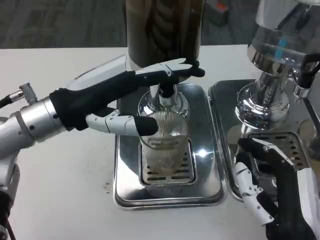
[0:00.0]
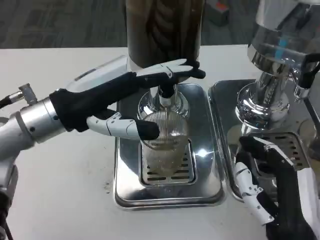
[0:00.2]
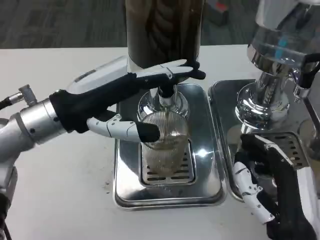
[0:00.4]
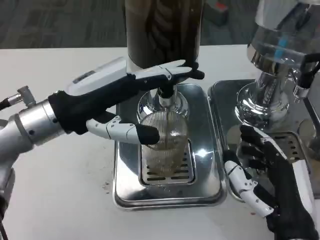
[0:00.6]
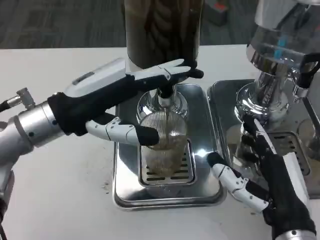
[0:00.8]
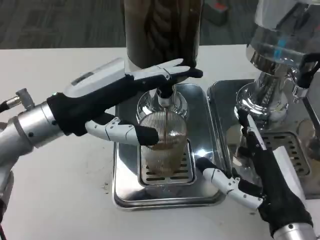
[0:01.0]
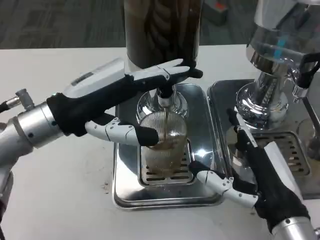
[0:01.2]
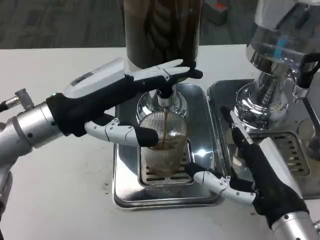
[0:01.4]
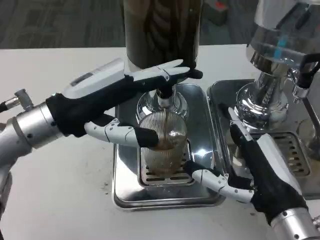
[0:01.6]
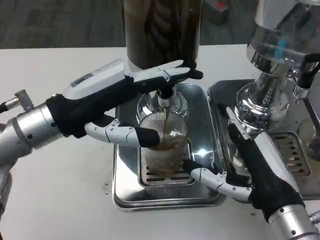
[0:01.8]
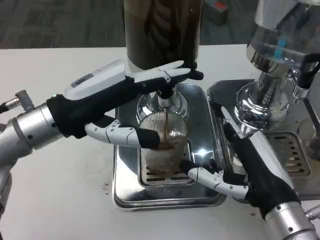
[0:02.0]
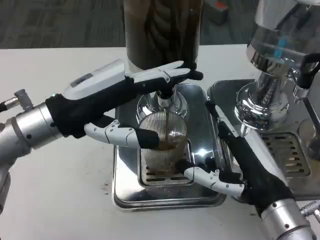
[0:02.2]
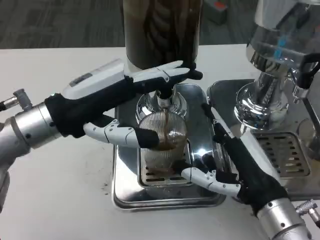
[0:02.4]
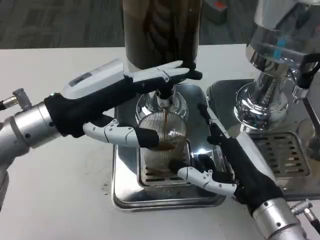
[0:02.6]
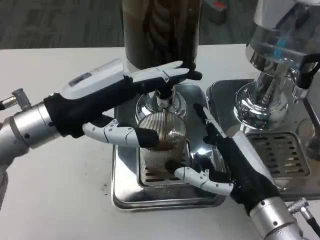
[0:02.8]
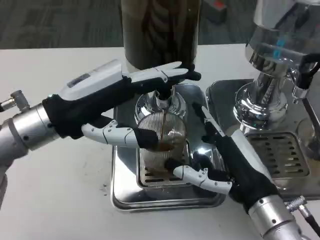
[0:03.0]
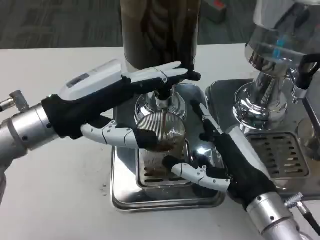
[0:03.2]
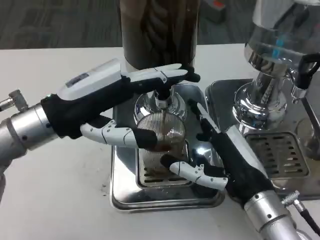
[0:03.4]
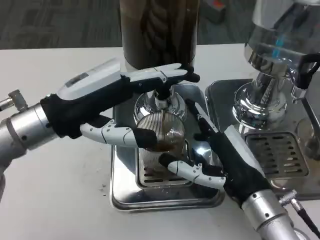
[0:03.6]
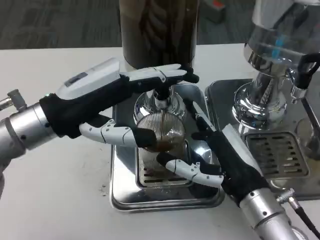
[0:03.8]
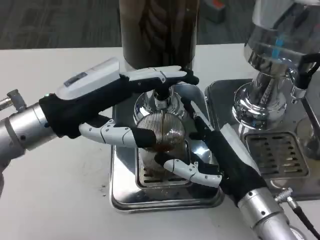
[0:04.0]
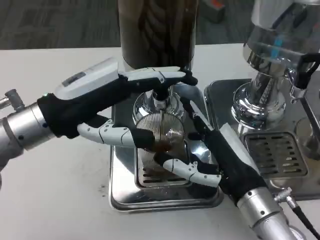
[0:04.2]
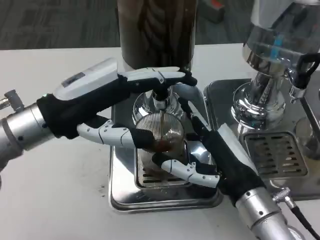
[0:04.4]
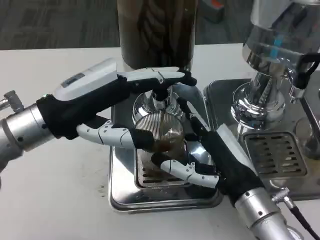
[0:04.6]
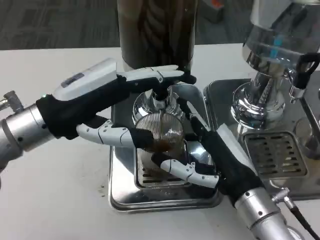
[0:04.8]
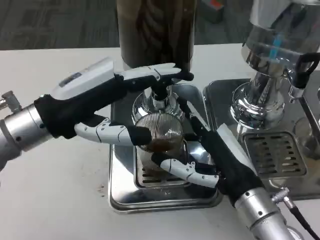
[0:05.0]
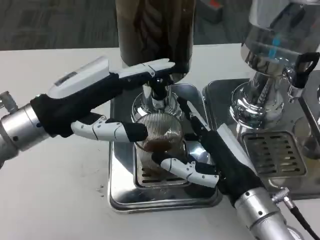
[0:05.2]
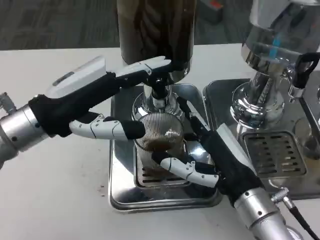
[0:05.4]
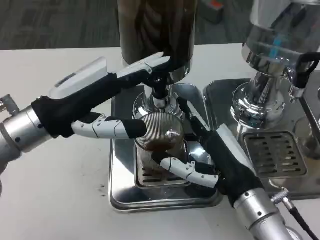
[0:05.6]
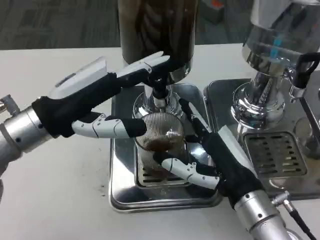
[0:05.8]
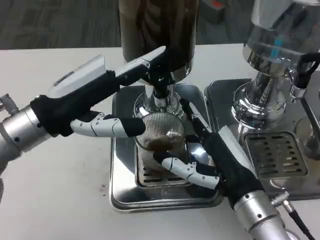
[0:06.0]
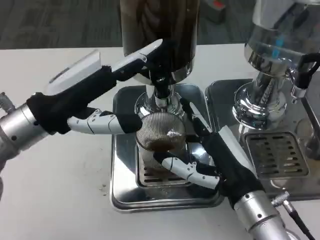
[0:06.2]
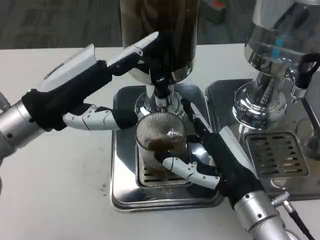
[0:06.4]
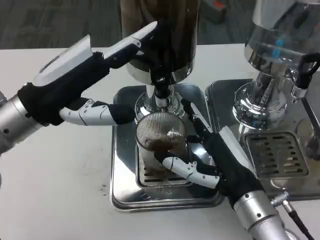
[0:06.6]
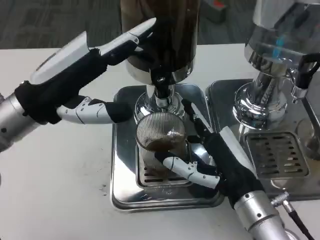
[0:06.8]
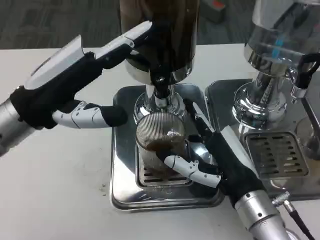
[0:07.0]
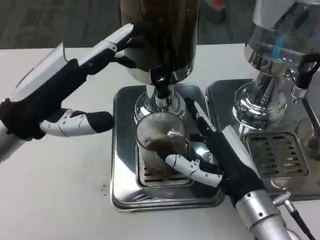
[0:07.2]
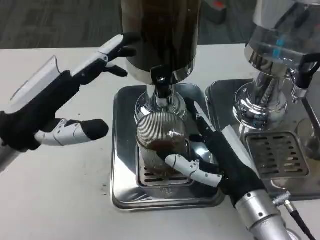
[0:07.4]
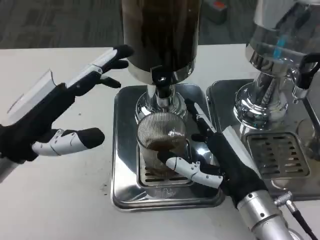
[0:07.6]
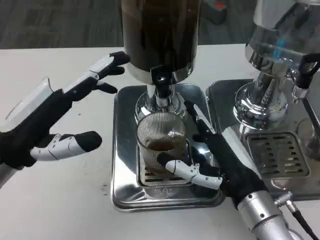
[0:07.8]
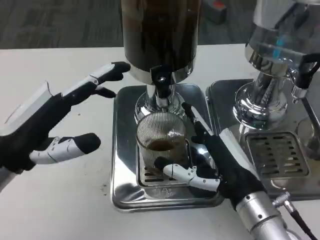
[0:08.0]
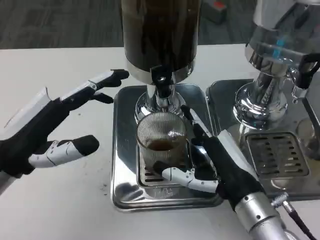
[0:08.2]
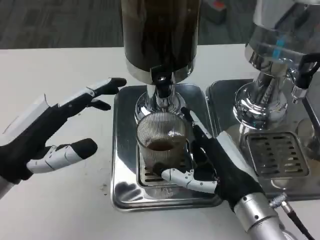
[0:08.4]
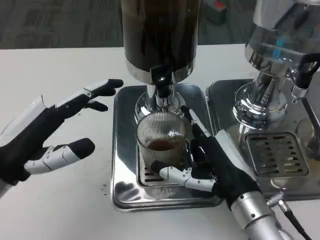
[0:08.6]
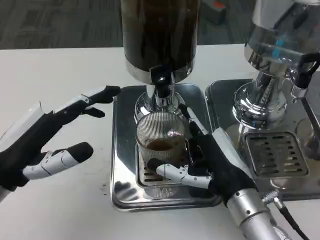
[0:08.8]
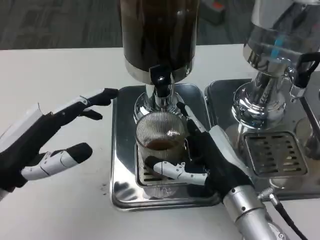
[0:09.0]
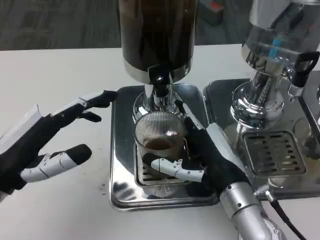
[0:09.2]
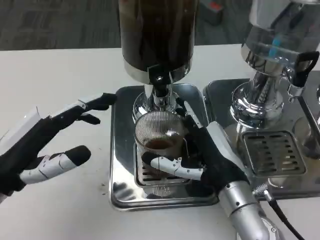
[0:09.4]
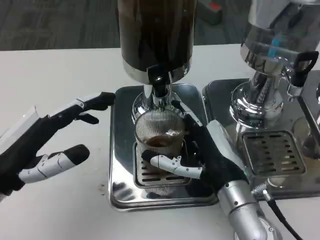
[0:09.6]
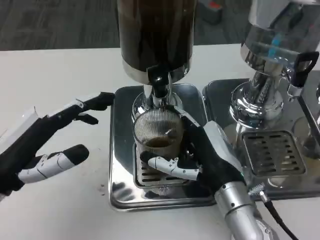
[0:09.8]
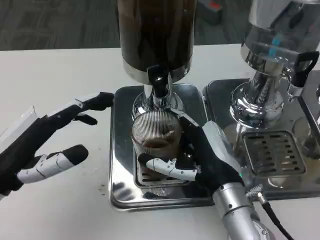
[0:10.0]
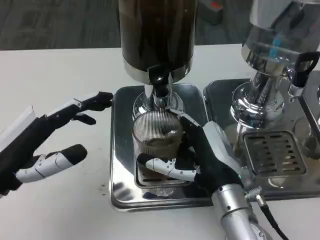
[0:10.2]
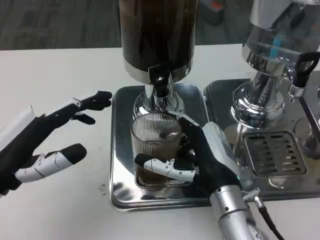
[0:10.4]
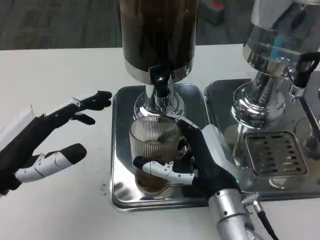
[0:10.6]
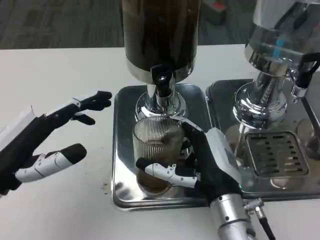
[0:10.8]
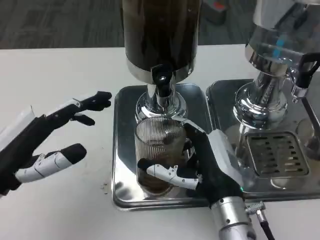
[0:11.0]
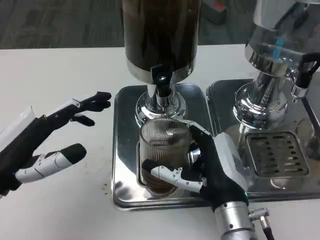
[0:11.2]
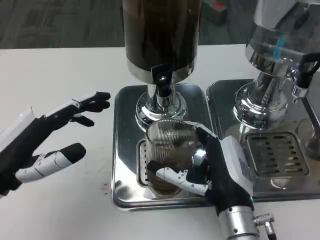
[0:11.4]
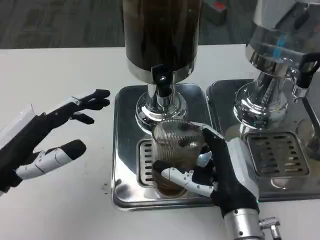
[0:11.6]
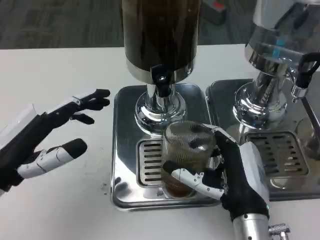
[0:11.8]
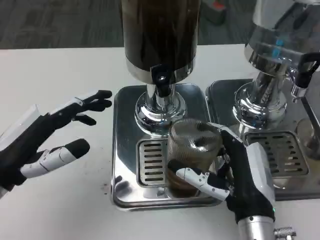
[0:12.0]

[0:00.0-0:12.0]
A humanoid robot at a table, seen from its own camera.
Task of the whole recording: Grasp the cup under the faucet to collect the drink, then remove the cup.
0:00.0 to 0:01.6: The right hand changes place by approximately 5 cm.
0:01.6 to 0:03.0: The hands make only small movements.
0:04.4 to 0:06.0: The hands make only small movements.
0:06.0 to 0:07.6: The left hand ends up roughly 5 cm from where it was.
0:09.0 to 0:10.4: The hands move only a little.

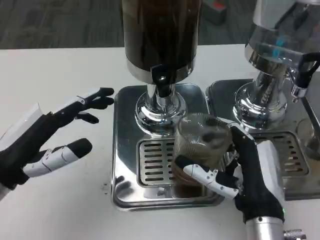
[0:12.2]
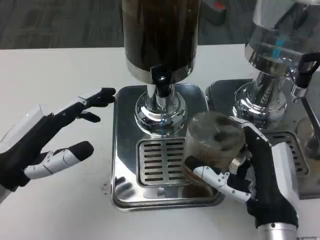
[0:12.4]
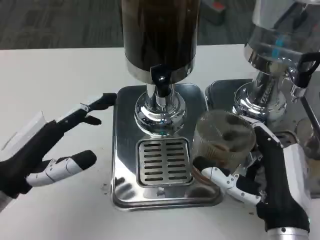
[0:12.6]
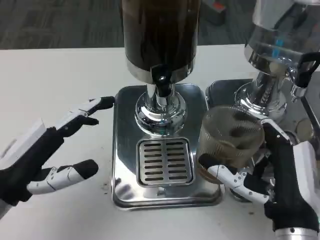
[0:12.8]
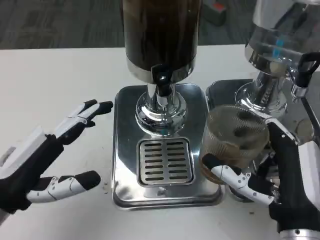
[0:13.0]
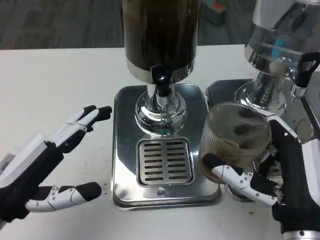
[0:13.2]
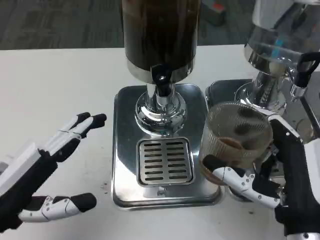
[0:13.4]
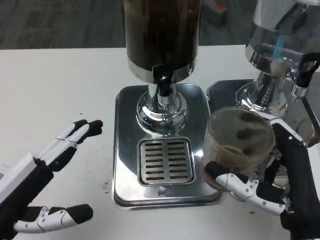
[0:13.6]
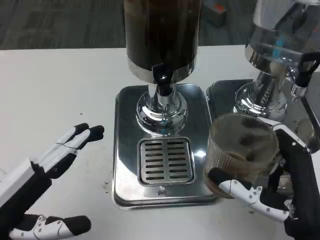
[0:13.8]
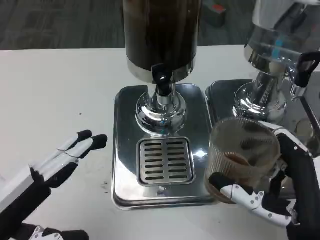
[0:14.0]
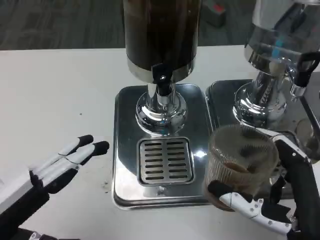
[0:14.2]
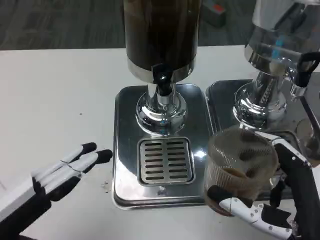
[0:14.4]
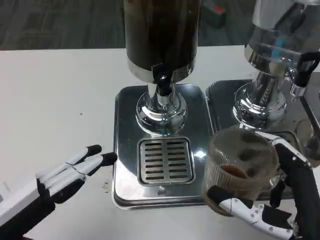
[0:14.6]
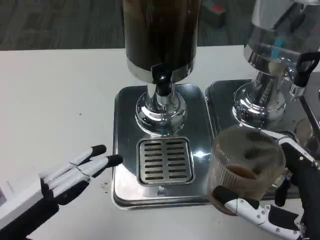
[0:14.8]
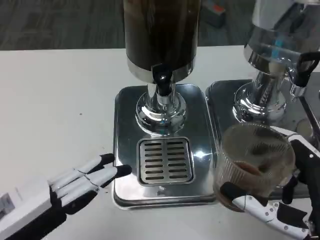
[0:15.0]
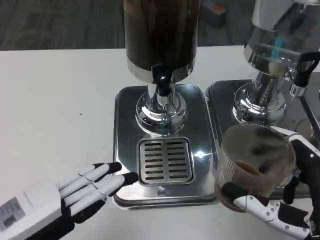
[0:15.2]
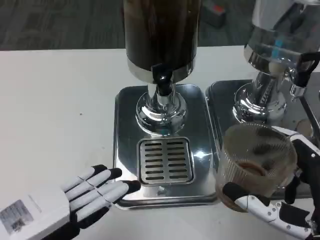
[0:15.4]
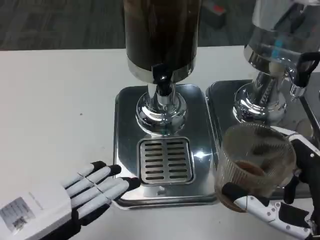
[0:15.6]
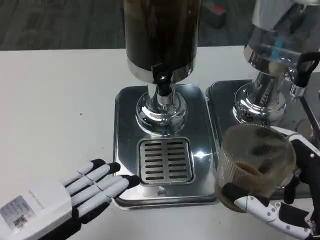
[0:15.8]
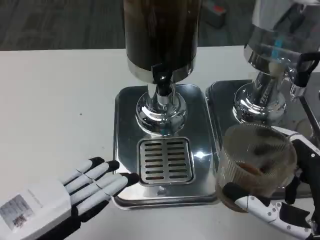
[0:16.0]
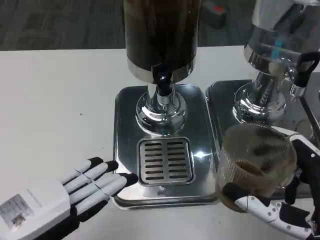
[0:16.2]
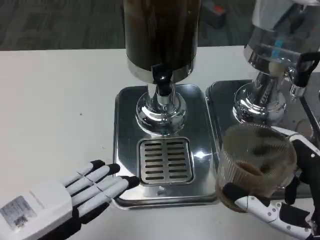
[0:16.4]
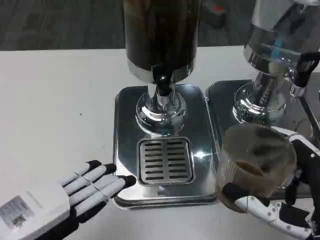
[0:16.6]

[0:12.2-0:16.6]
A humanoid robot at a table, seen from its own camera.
Task of the whole recording: Grasp the cup under the faucet to collect the drink, then remove the cup.
0:12.2 to 0:13.6: The left hand heads backward, covering roughly 5 cm. The right hand moves about 5 cm.
0:15.2 to 0:16.6: The hands make only small movements.

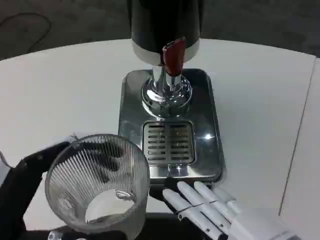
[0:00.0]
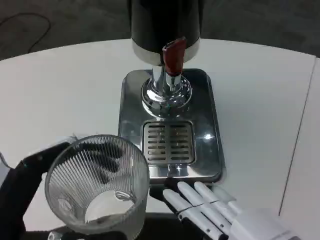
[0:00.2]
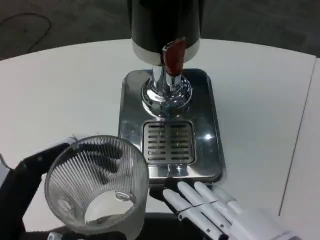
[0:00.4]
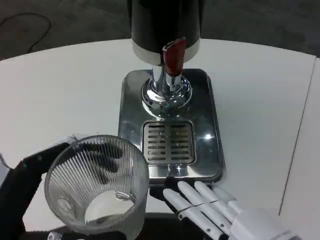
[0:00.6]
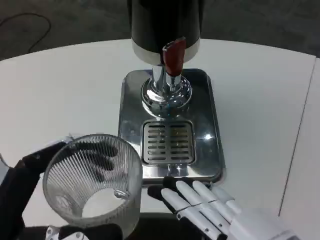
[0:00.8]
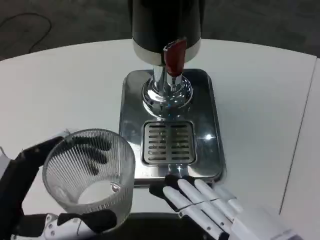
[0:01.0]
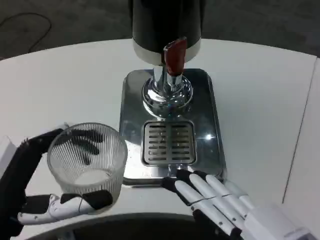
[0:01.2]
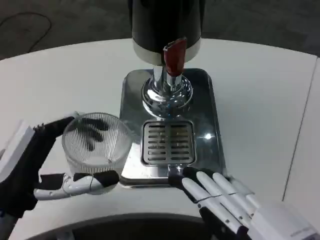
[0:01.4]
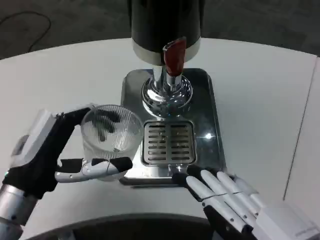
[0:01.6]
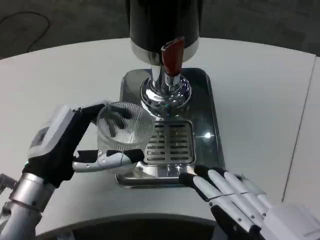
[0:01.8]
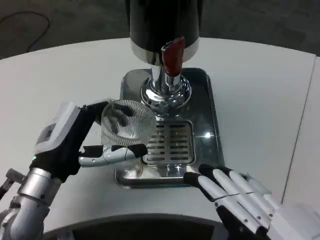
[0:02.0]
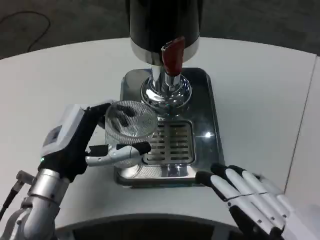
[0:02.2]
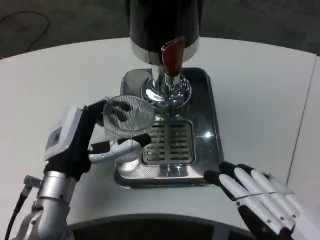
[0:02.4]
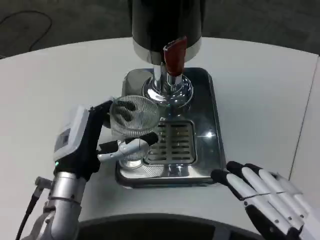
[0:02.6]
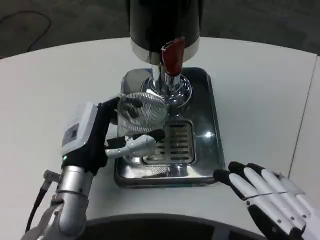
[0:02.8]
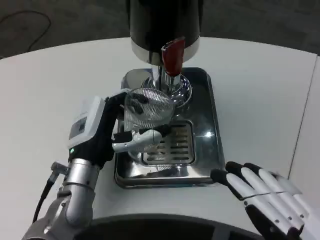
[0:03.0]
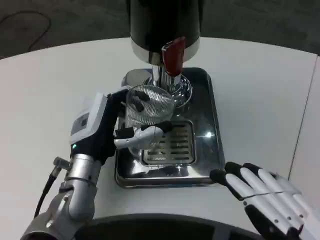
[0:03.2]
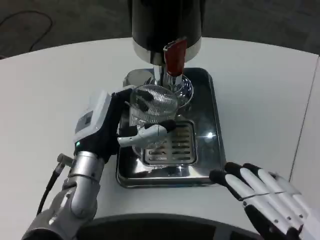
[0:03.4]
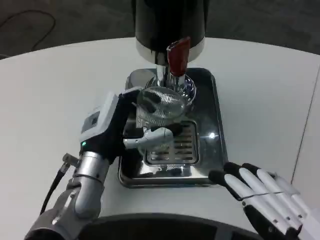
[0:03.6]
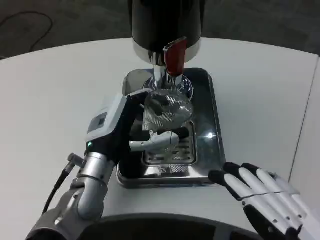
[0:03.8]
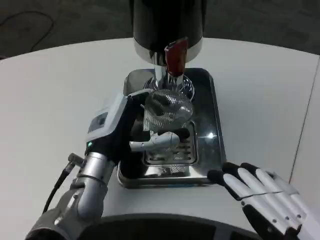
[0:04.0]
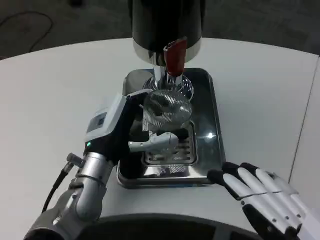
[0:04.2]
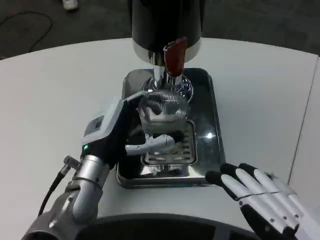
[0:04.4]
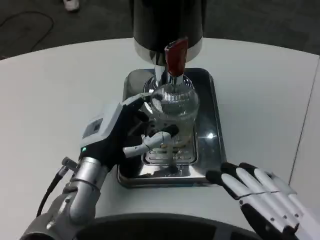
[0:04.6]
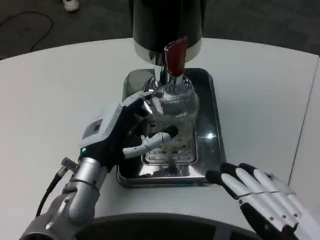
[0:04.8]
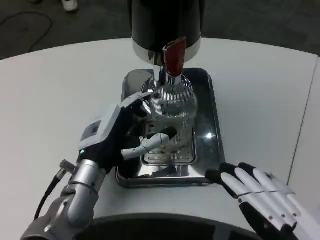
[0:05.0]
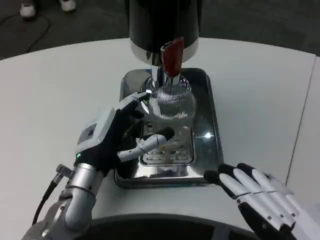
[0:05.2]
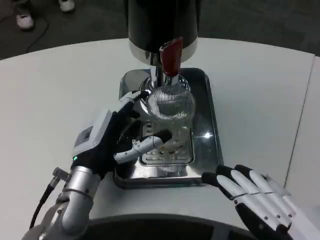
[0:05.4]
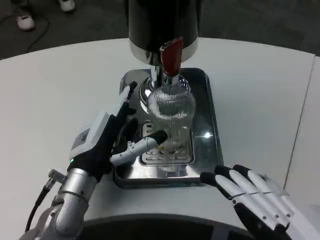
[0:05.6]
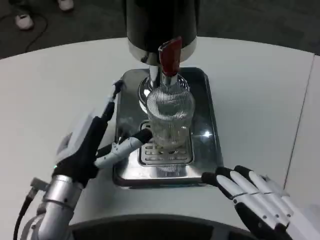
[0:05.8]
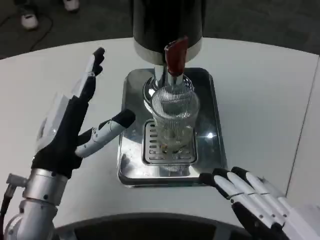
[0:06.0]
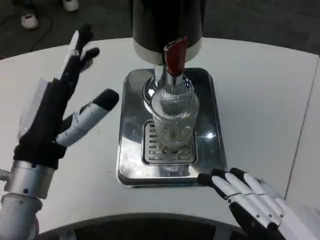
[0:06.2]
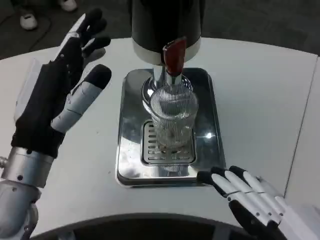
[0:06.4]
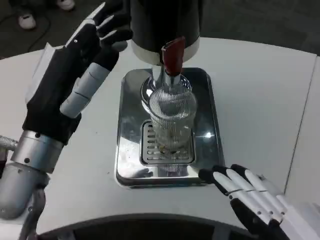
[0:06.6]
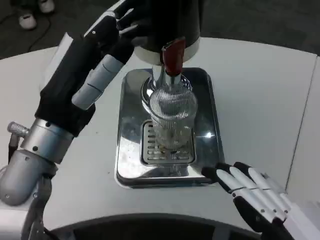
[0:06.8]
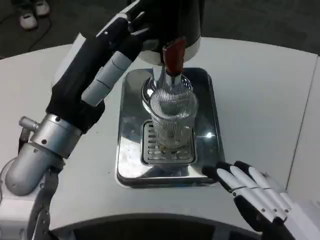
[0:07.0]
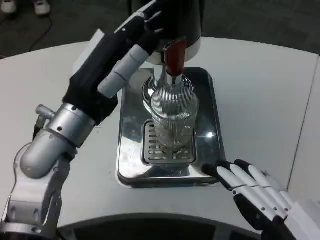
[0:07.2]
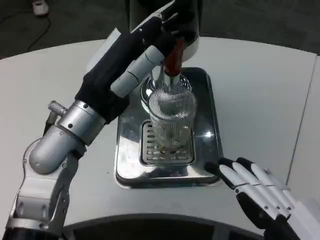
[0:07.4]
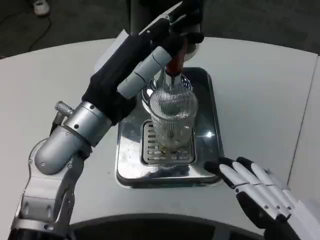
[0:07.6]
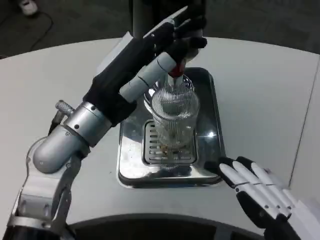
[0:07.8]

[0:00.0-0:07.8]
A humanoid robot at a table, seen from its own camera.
Task of the whole recording: Grasp the cup under the faucet to collect the drink, then remove the cup.
0:00.0 to 0:01.6: The left hand is displaced forward by about 15 cm.
0:01.6 to 0:03.2: The left hand is displaced to the right and forward by roughly 10 cm.
0:03.2 to 0:04.6: There are only small adjustments of the hands.
0:04.6 to 0:06.2: The left hand travels backward and upward by about 10 cm.
0:06.2 to 0:07.8: The left hand travels upward and forward by about 10 cm.
